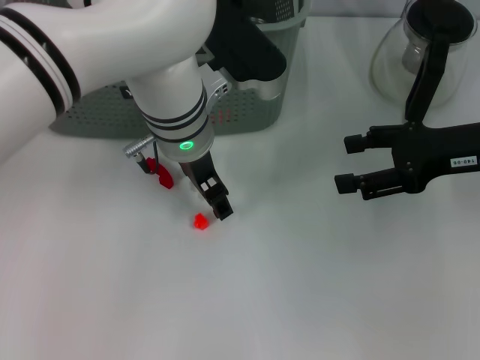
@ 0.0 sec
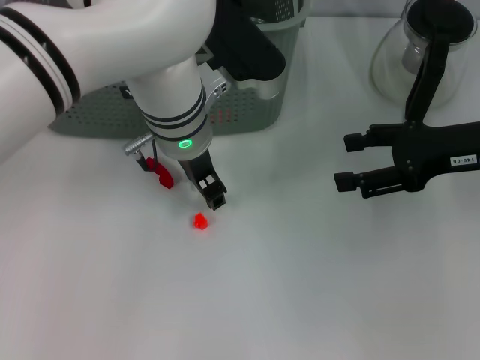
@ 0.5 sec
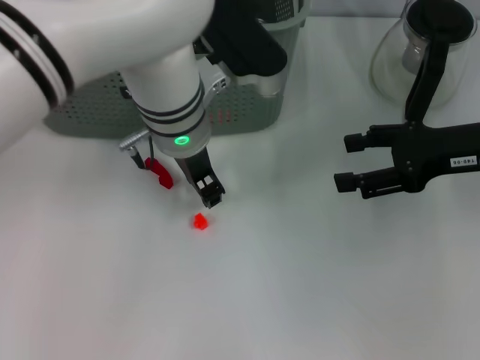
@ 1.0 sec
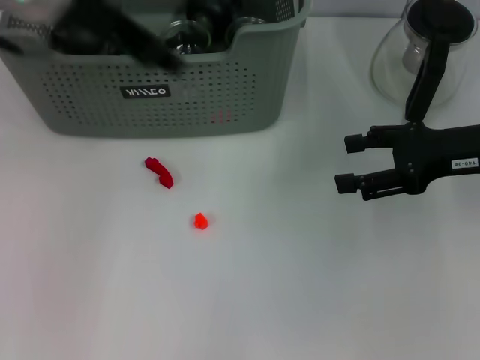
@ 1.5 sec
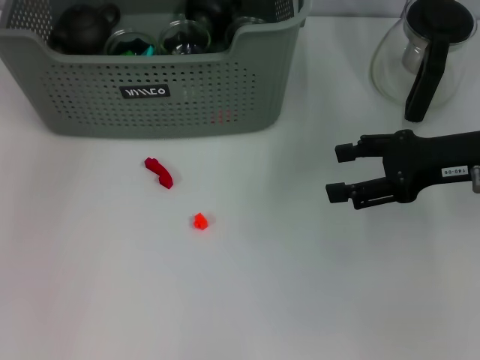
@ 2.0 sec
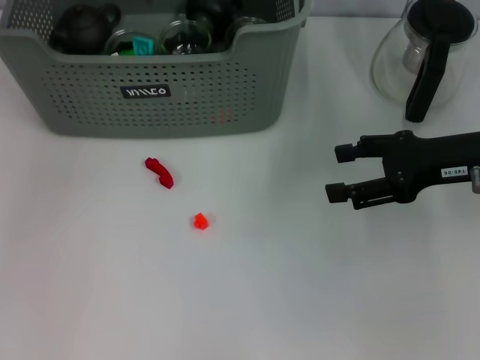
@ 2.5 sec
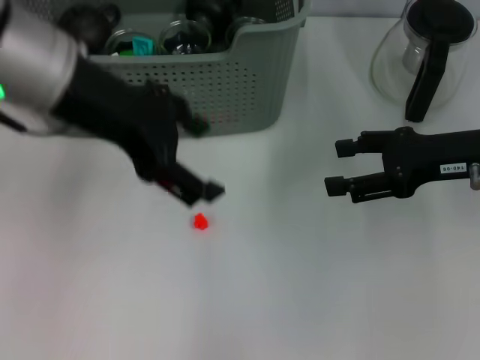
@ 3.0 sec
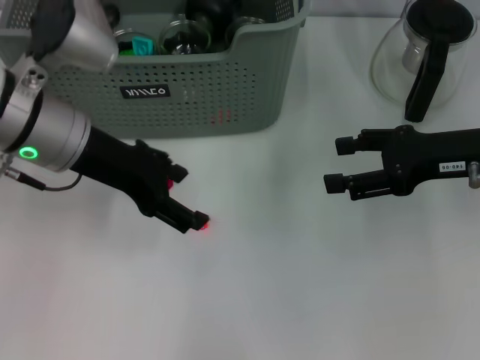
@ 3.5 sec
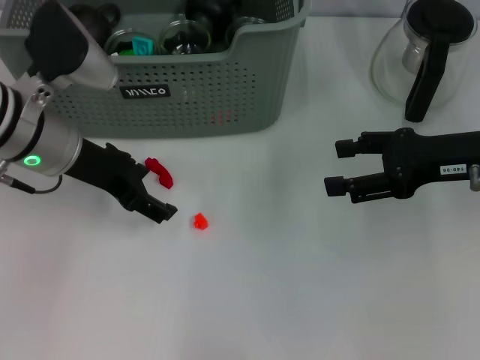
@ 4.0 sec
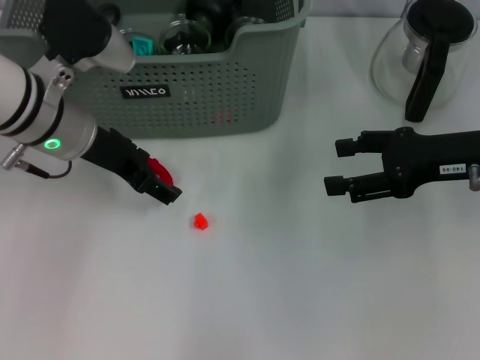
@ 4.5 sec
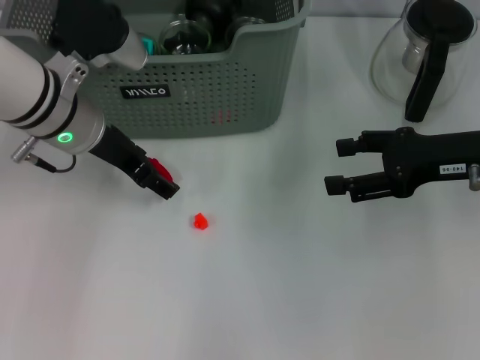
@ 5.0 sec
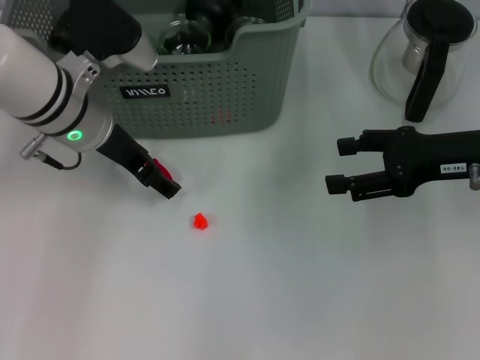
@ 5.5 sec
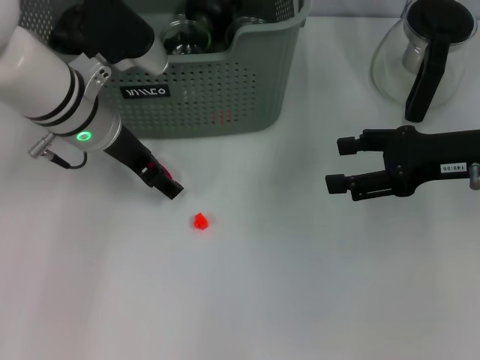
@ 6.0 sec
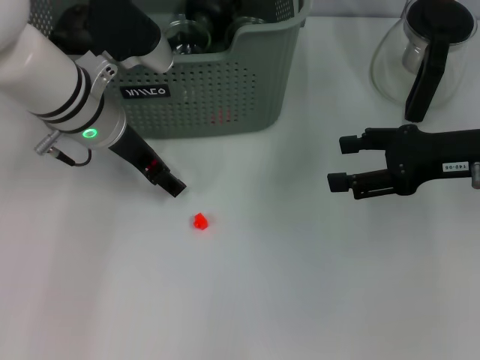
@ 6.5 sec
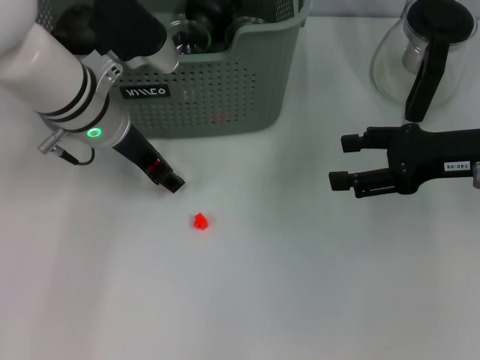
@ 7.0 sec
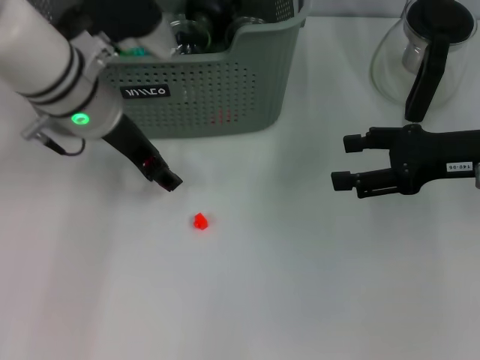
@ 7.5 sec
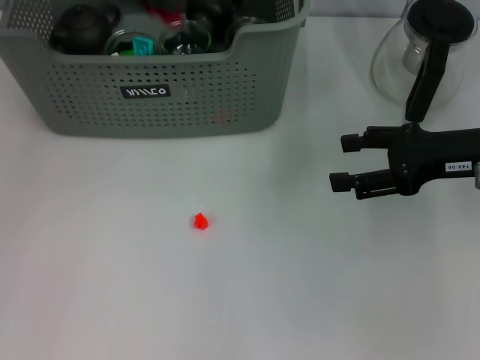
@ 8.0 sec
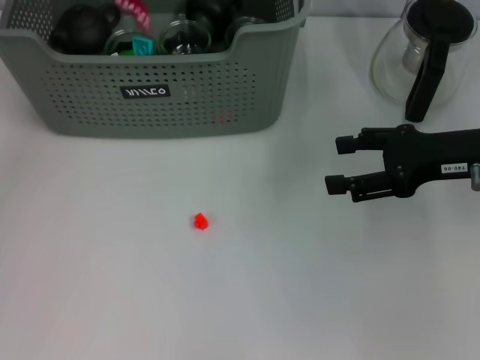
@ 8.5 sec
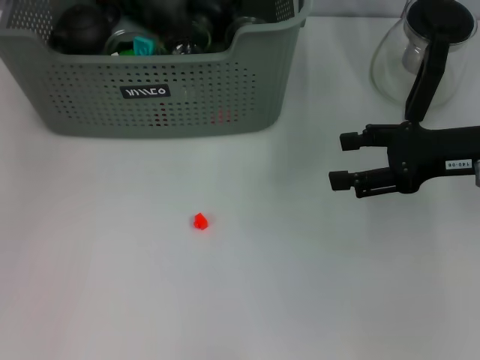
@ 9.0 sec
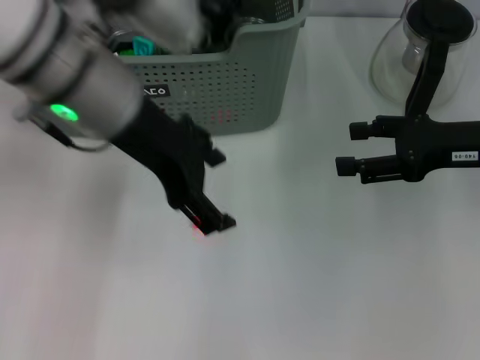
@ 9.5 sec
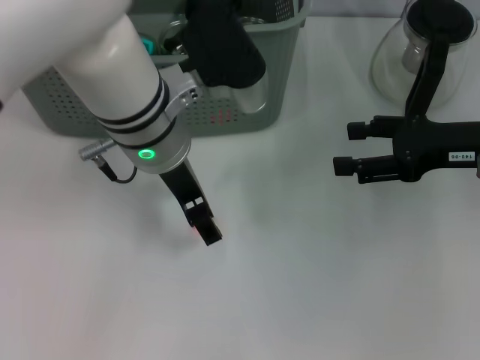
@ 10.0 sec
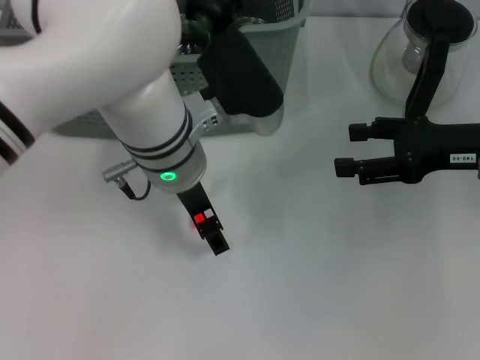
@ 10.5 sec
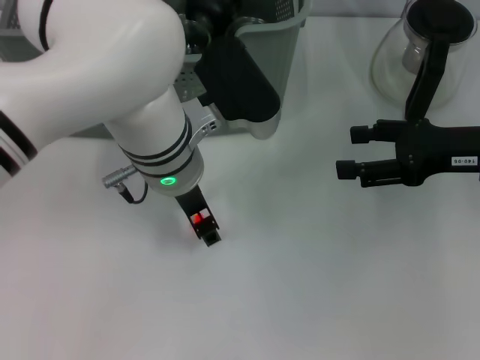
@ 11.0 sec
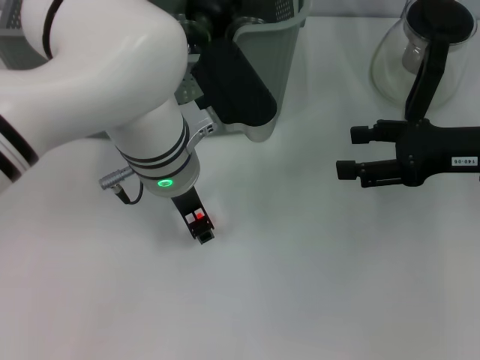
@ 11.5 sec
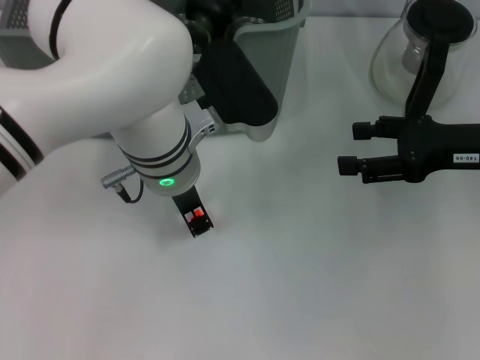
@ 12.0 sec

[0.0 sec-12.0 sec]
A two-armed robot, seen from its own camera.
Task of the whole recording: pick up the teacup on the table and place it into the storage bin, pick up the block on the table and place it into the storage bin.
Step, 1.0 sec to 2.0 sec: Place the white block in the storage box with left gripper.
Step, 3.0 sec to 7.0 sec: Grasp the red block with left gripper.
Step, 7.5 sec to 8.5 sec: Place the red block in the storage box with left gripper.
0.0 sec to 2.0 sec: The left gripper shifts roughly 25 cm to the left and upward, and closes up.
2.0 sec to 4.0 sec: The left gripper heads downward and backward, covering about 20 cm, and opens its fingers.
4.0 sec to 6.0 sec: The left gripper ends up some 5 cm from where it was.
6.0 sec to 8.0 sec: The left gripper heads upward and to the left, covering approximately 20 cm.
8.0 sec to 10.0 sec: The left gripper moves to the right and downward, roughly 20 cm.
10.0 sec to 12.0 sec: The left gripper closes.

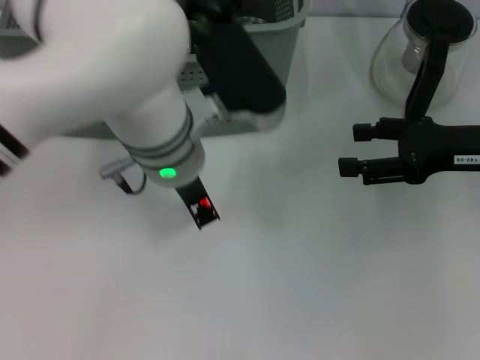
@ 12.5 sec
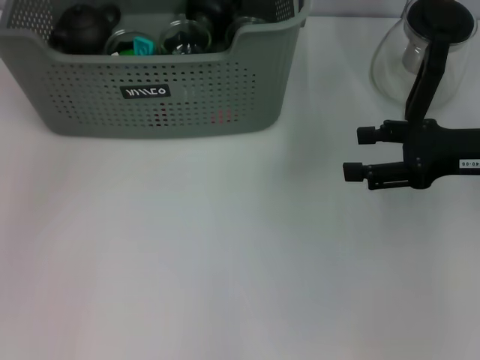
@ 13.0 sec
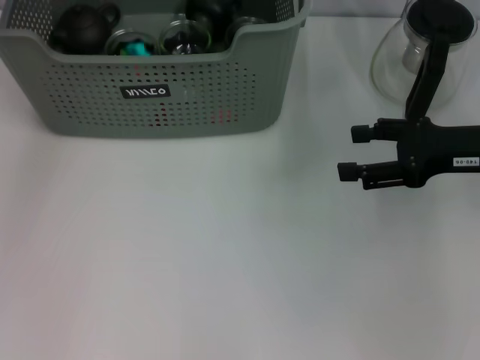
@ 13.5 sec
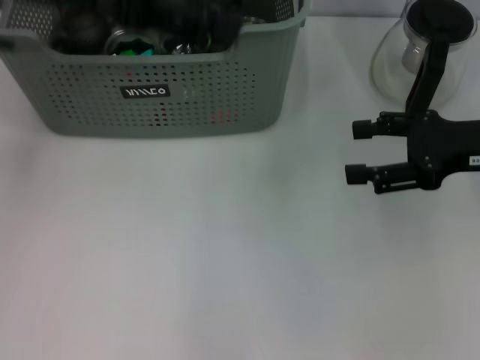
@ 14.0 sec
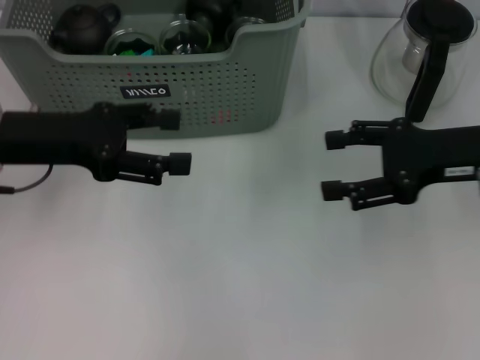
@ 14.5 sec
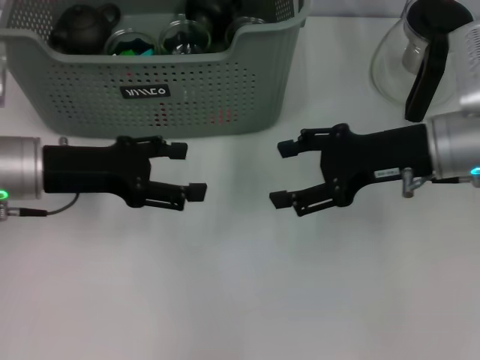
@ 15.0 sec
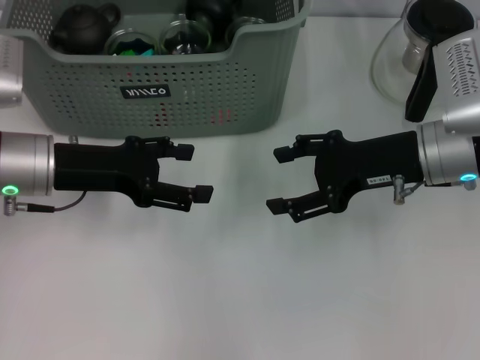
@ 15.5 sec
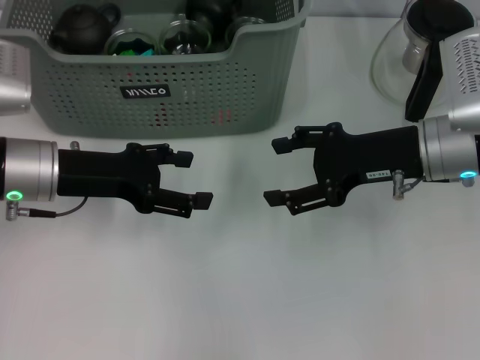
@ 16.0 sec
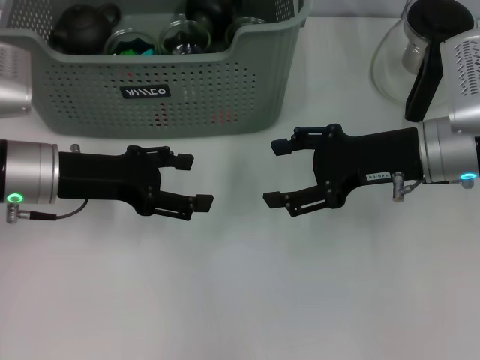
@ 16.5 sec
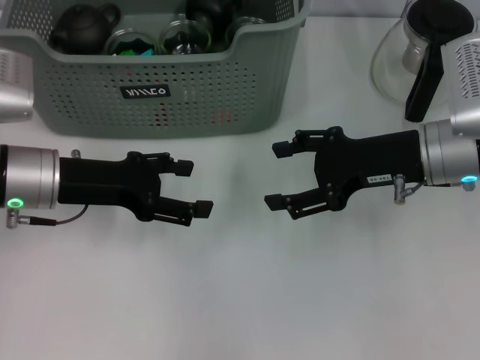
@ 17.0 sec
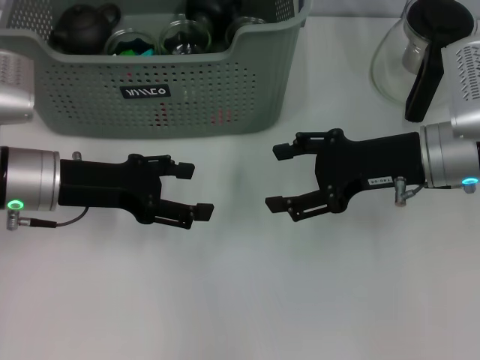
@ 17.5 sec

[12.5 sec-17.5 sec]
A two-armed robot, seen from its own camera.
Task of the whole recording: pick up the teacup on the table and place it into the storage bin, pick up the block on the table and place it into the storage bin.
Step, 12.5 sec to 13.5 sec: Place the orange block in the storage box with left gripper.
12.5 sec to 15.0 sec: The left gripper goes roughly 20 cm to the left, goes upward and returns, roughly 15 cm each way, and opens up; the right gripper travels to the left by some 10 cm.
15.0 sec to 17.5 sec: There are only small adjustments of the grippers.
